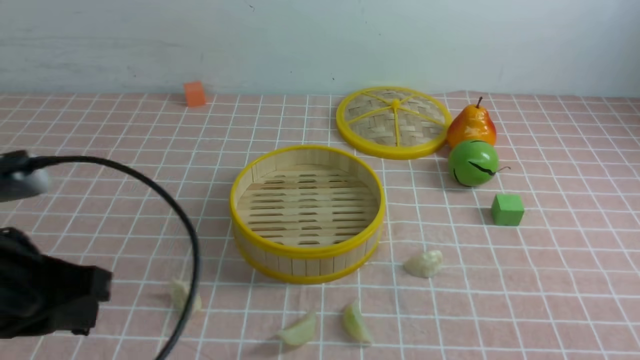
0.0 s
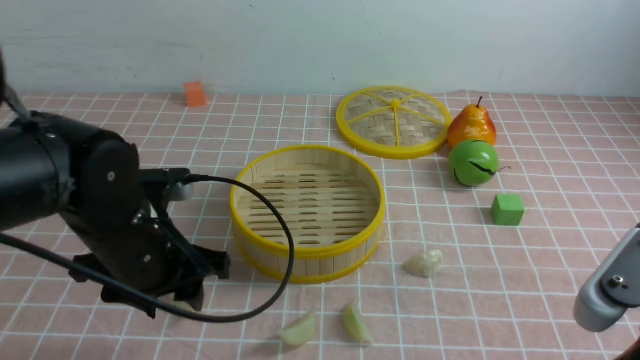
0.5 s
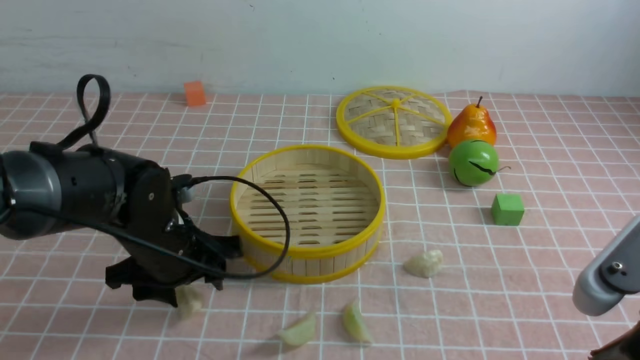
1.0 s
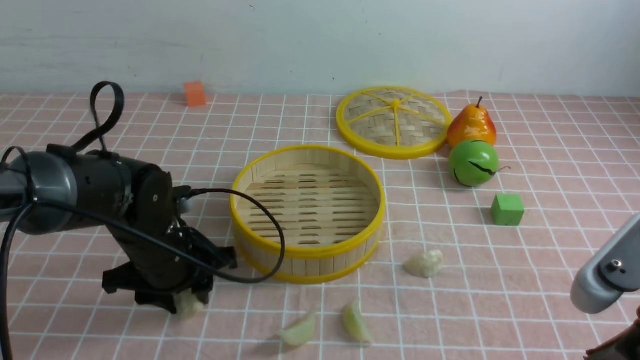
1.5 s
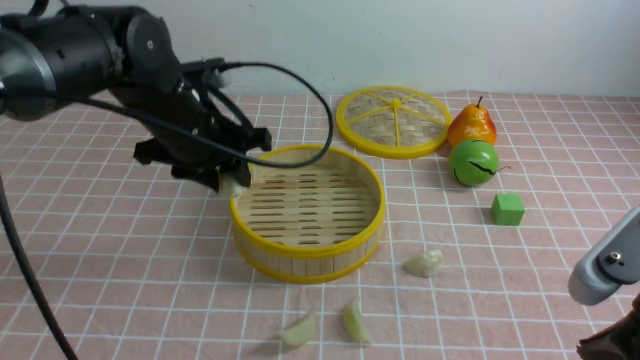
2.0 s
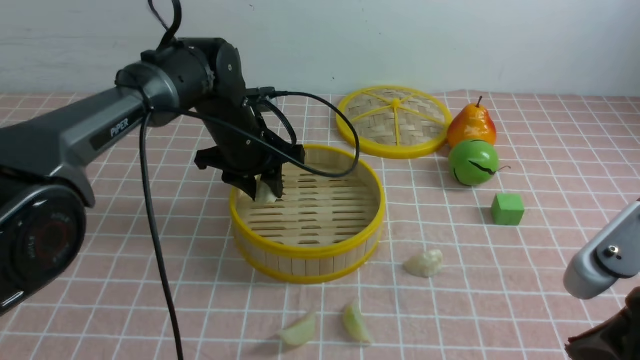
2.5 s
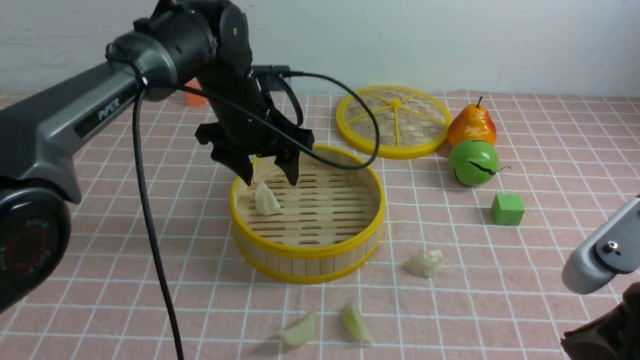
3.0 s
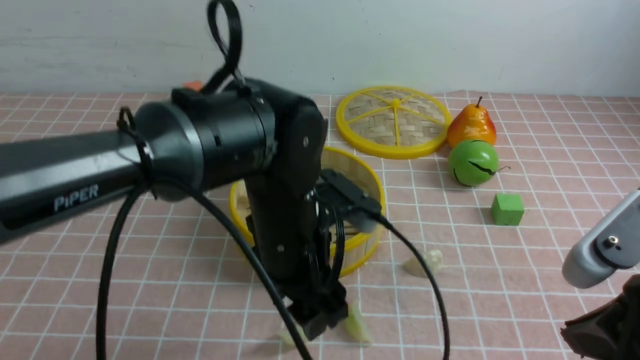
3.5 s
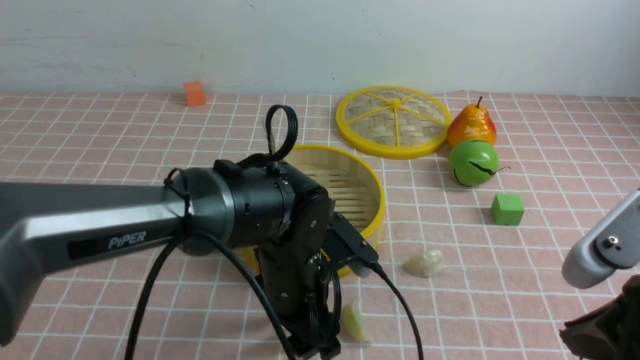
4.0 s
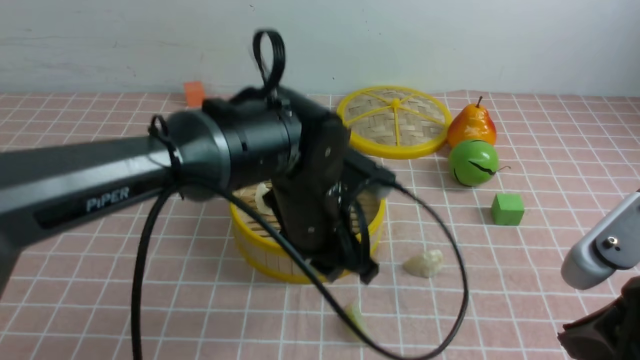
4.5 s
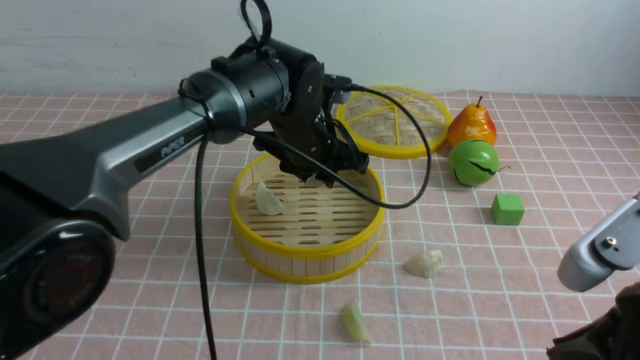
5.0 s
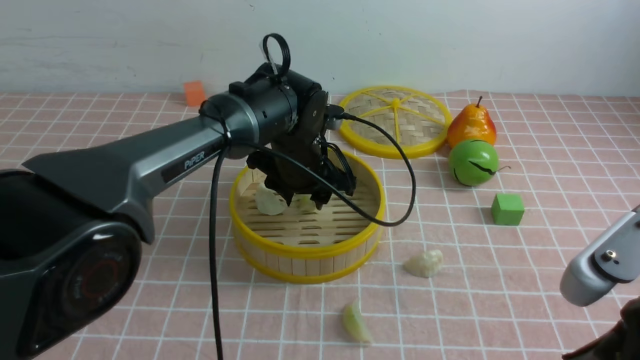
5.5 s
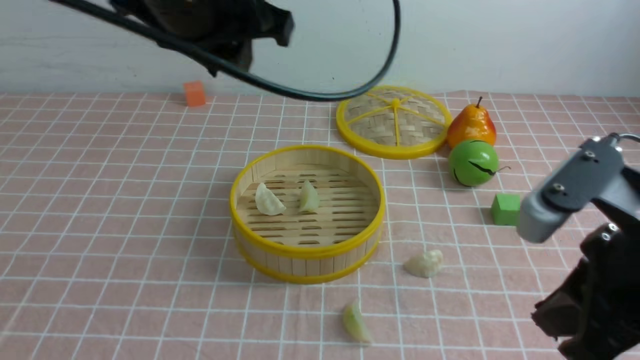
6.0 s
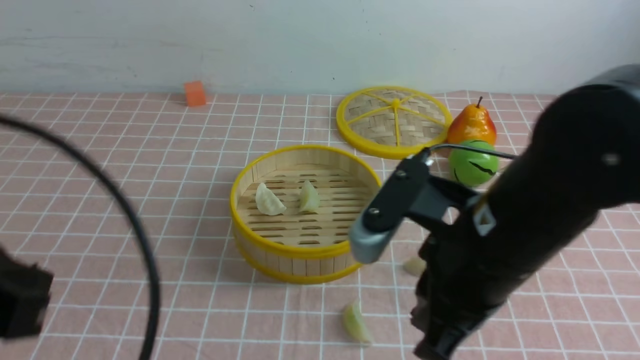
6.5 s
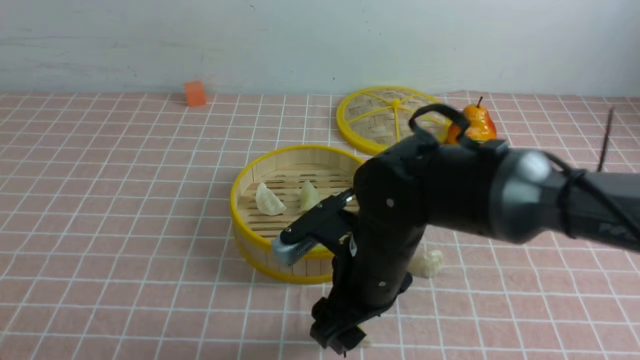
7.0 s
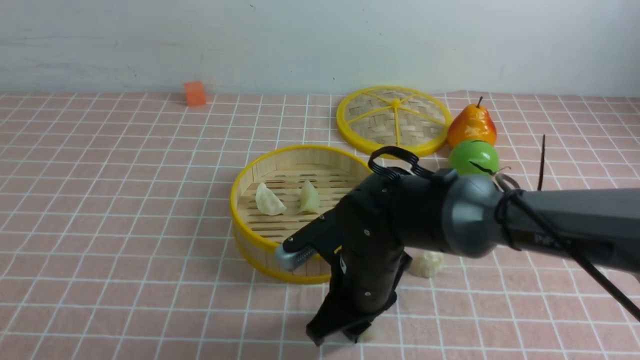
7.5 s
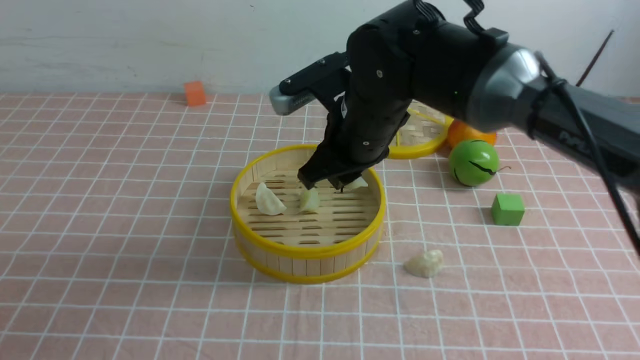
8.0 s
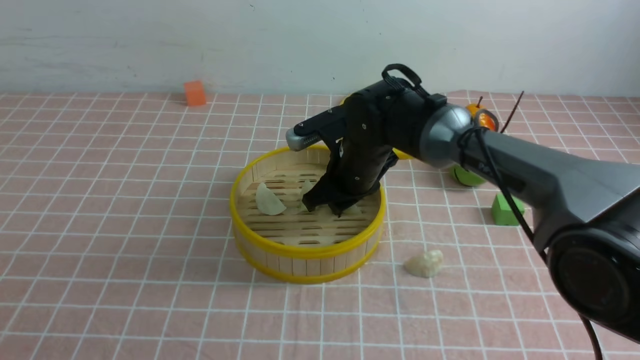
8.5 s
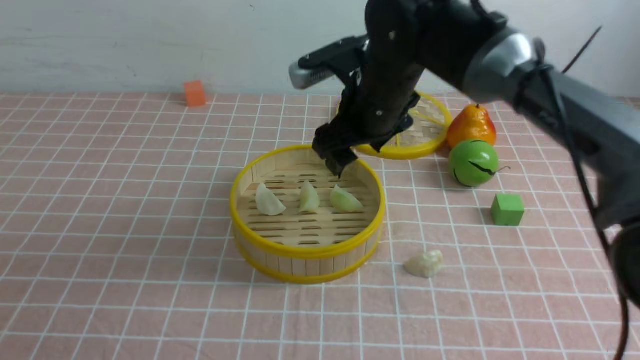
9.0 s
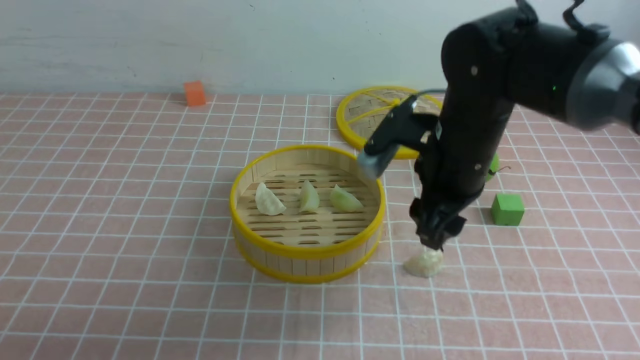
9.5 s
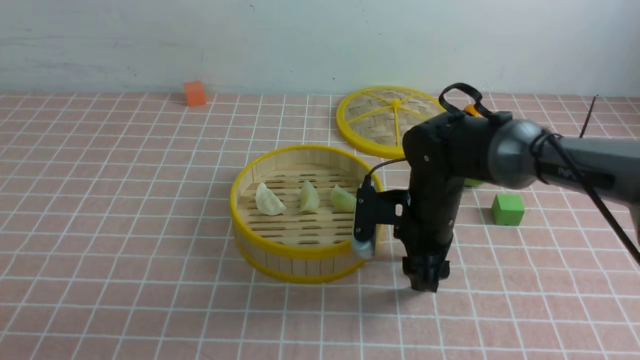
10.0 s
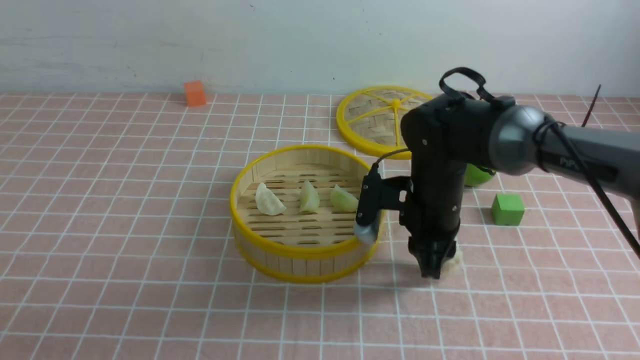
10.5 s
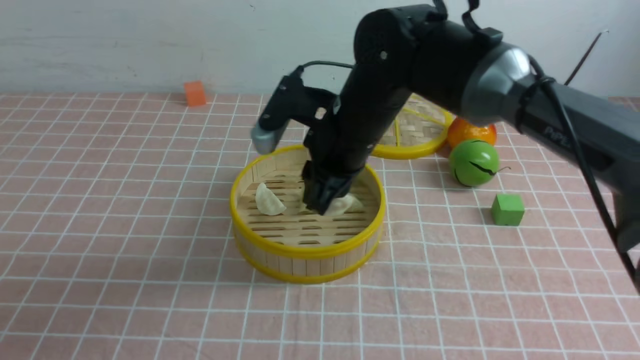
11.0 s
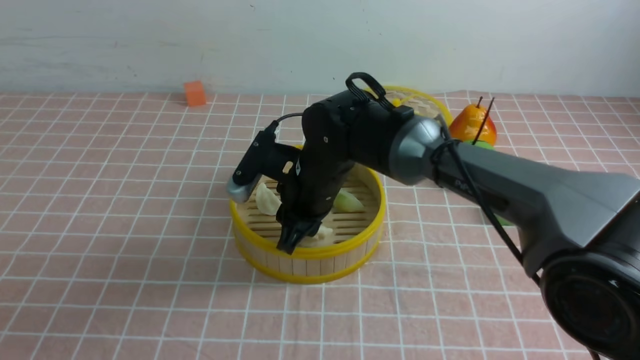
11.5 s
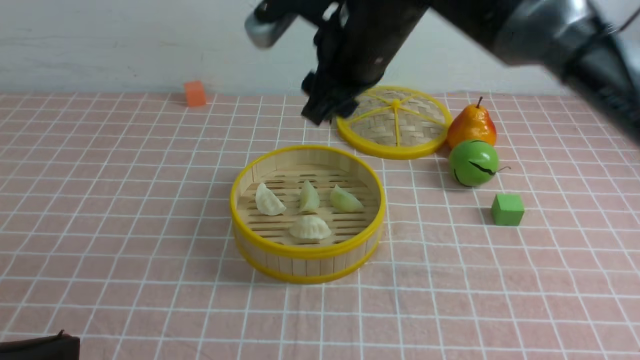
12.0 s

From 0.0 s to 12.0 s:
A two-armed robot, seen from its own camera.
Task of the whole recording: put the dumplings into the steamer on the table with the pink tablecloth.
Step, from 2.0 s to 2.5 s: use the left arm to put the dumpling into the steamer.
Step, from 3.0 s to 4.0 s: use the left arm to grab a dumpling.
Step, from 4.5 s to 5.5 s: use the left arm to put the dumpling into the steamer.
Step, from 6.0 s to 7.5 s: use the right arm to grab a dumpling.
Step, from 8.0 s to 8.5 s: use the right arm to put the dumpling into the steamer.
Step, from 9.0 s to 10.5 s: use the right arm to grab a dumpling.
Step, from 11.0 s to 11.5 s: use the right arm to put the dumpling into the steamer.
From 0.0 s to 2.0 s: The left gripper goes some 25 cm forward and to the right, and opens its fingers. Meanwhile the right gripper travels forward by some 5 cm.
From 2.0 s to 4.0 s: The left gripper heads to the right, backward and downward, covering roughly 15 cm, and opens.
From 4.0 s to 6.0 s: The left gripper moves up and down over some 20 cm, changing direction 2 times, and closes up.
From 6.0 s to 8.0 s: The right gripper is displaced forward and to the left by approximately 25 cm, and opens, then closes once more, while the left gripper shifts approximately 30 cm backward and to the left, and closes its fingers.
From 8.0 s to 10.0 s: The right gripper goes up and down, about 10 cm each way, reversing 2 times, and opens.
From 10.0 s to 12.0 s: The right gripper goes up and down, approximately 15 cm each way, reversing 2 times, and closes, then reopens.

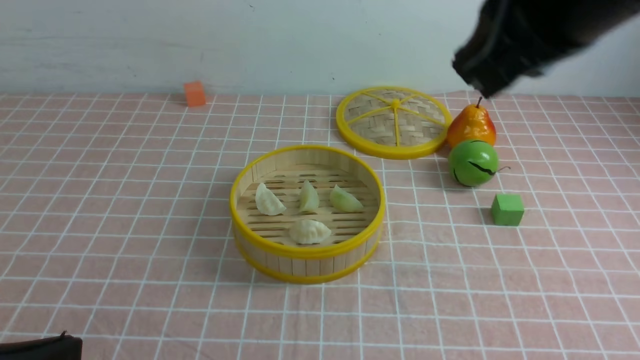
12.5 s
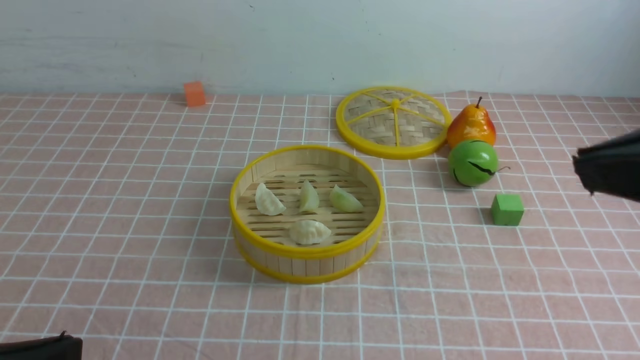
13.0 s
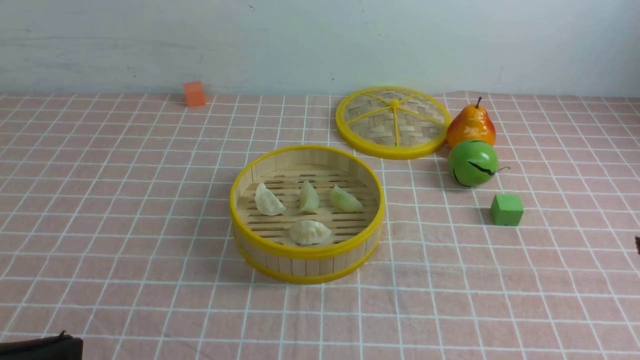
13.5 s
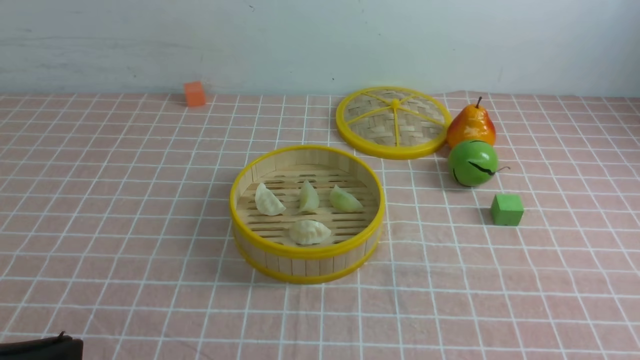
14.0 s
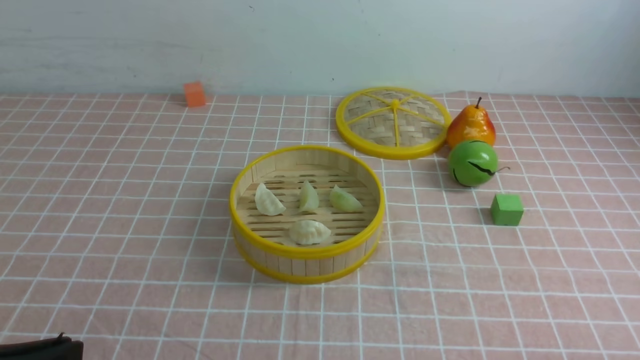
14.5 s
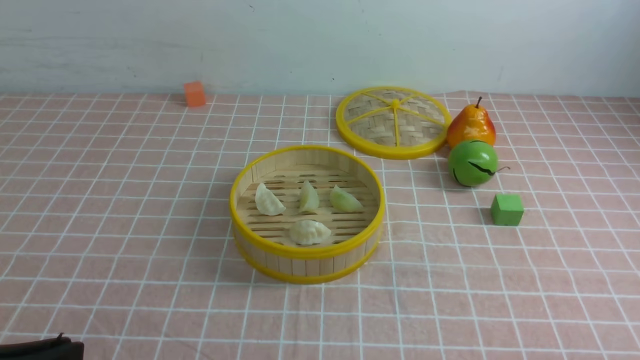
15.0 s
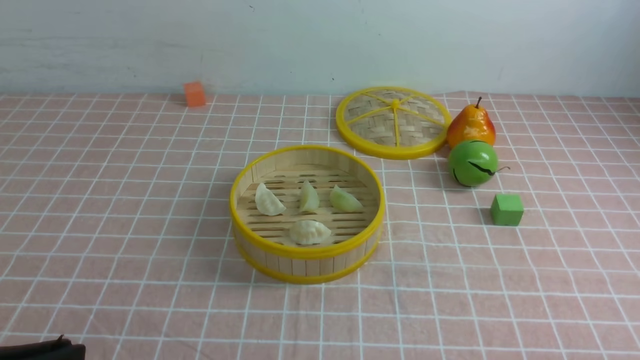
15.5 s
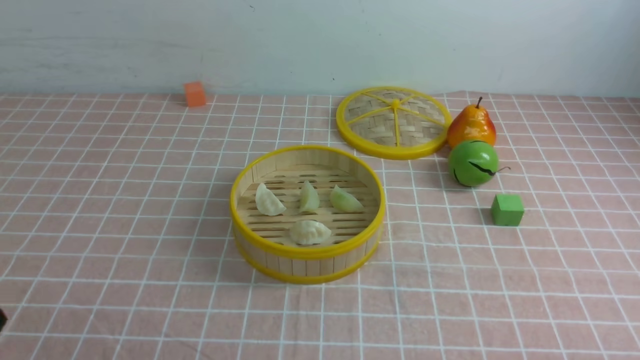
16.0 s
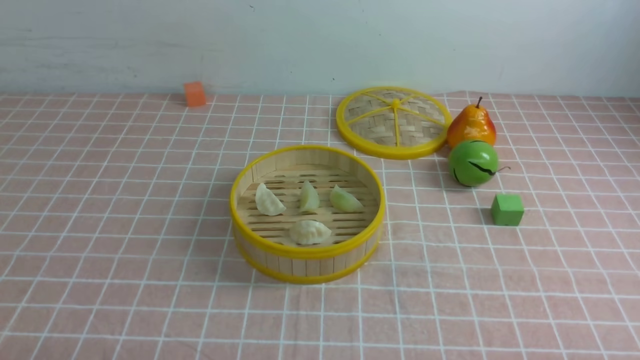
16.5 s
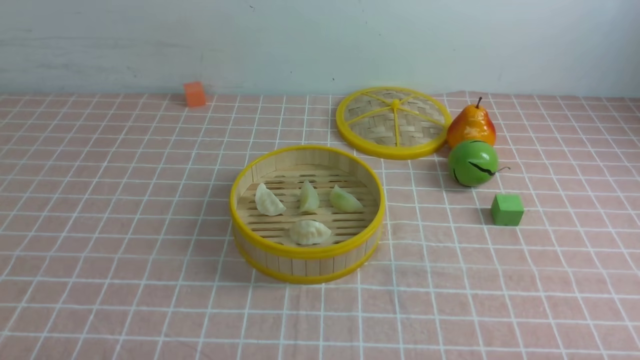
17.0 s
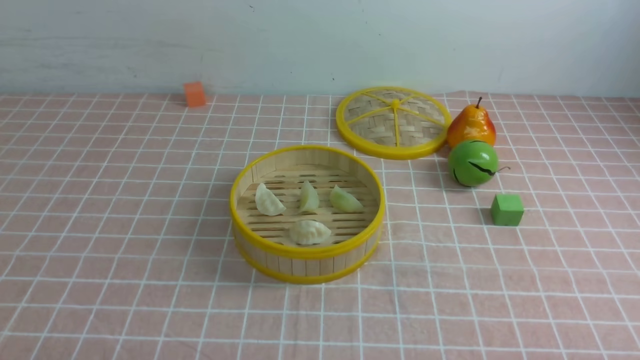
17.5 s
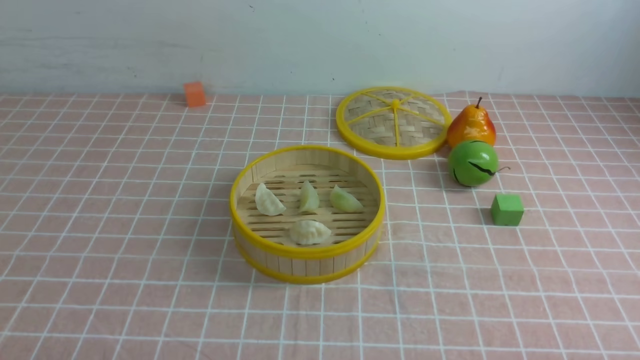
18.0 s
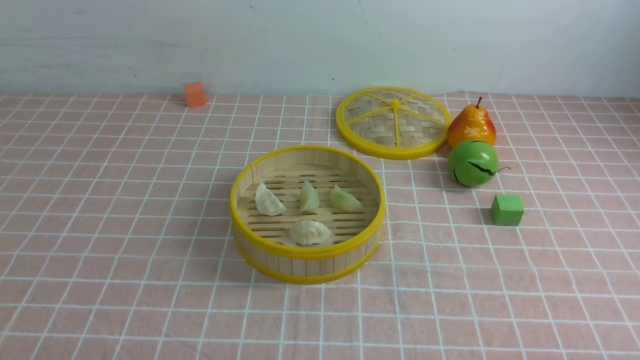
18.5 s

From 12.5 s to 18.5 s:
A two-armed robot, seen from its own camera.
Task of the whole recording: put the dumplings into the steamer on the table with the pink tablecloth.
From 12.5 s to 14.5 s: The right gripper is displaced downward, backward and to the right by some 40 cm.
From 14.5 s to 16.5 s: The left gripper heads downward, covering roughly 10 cm.
